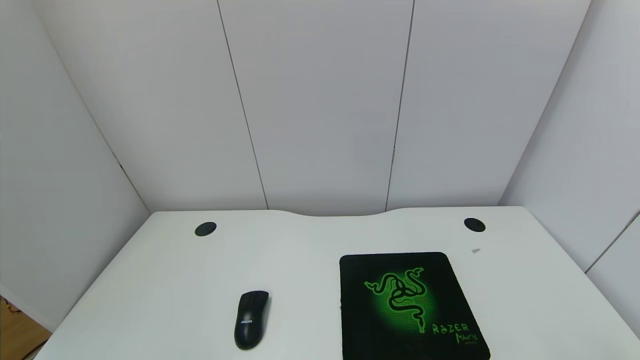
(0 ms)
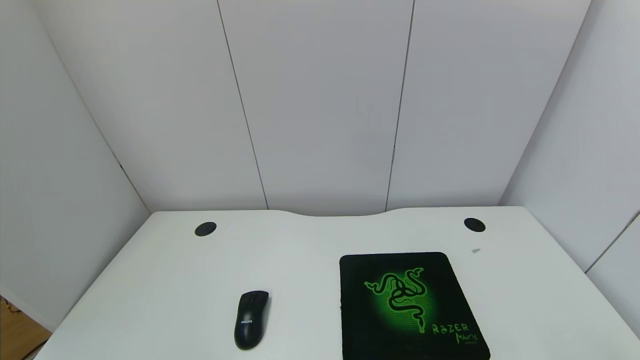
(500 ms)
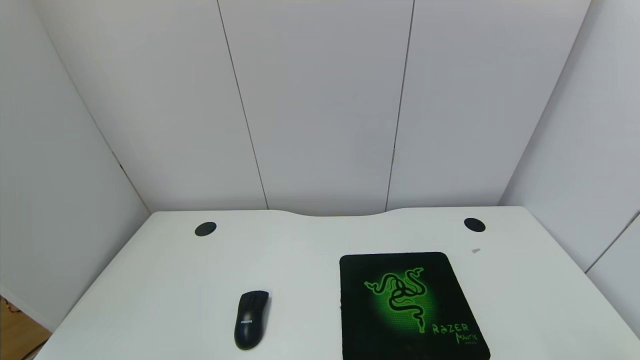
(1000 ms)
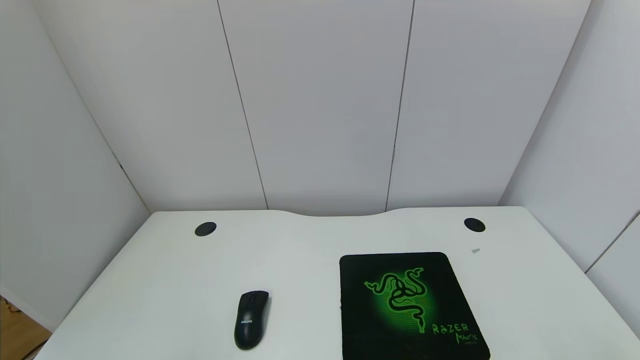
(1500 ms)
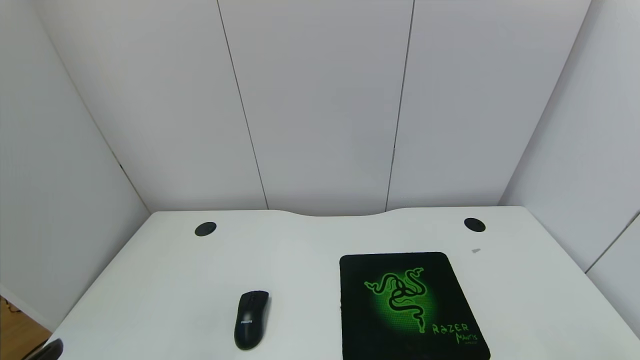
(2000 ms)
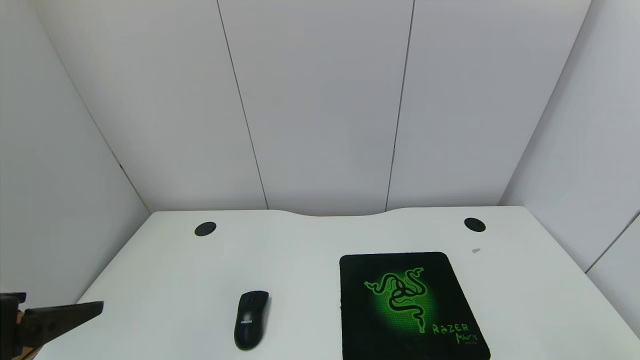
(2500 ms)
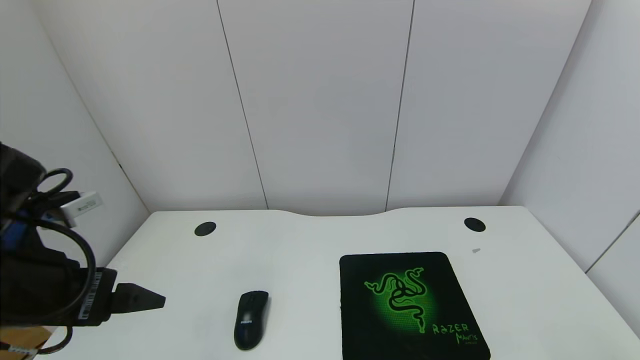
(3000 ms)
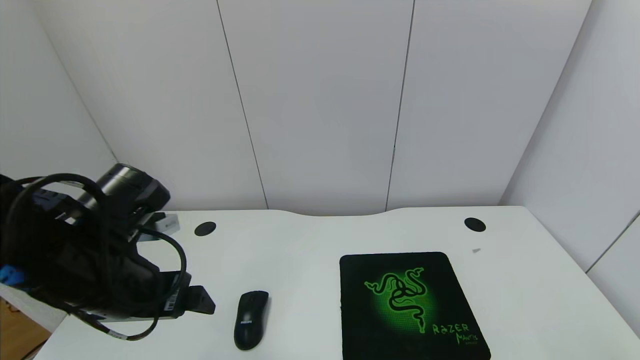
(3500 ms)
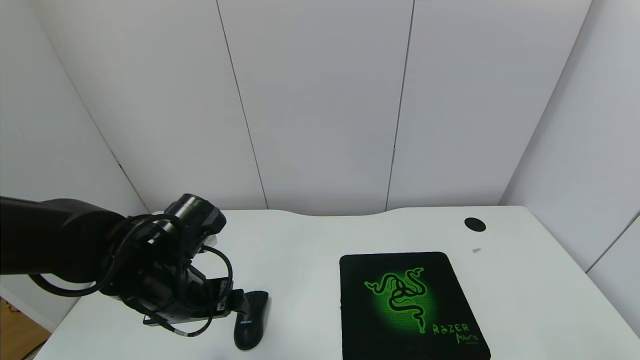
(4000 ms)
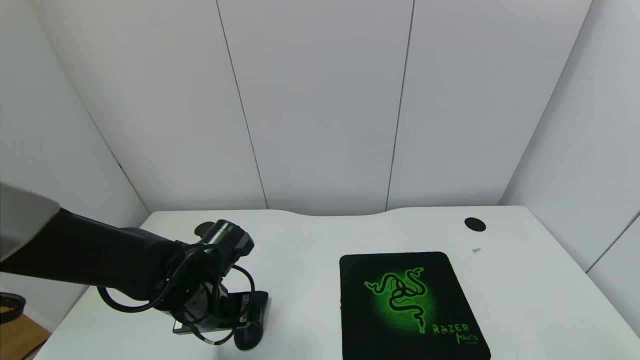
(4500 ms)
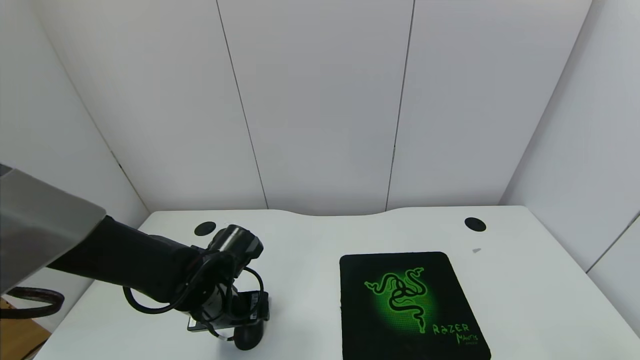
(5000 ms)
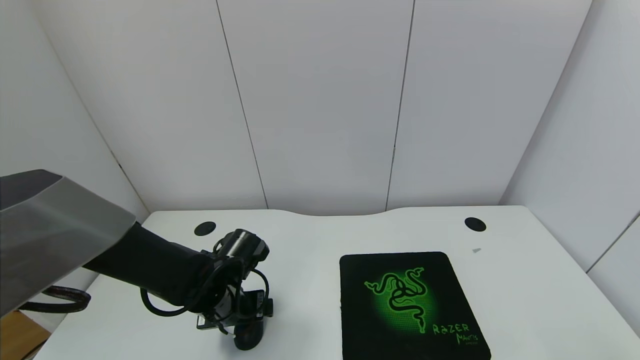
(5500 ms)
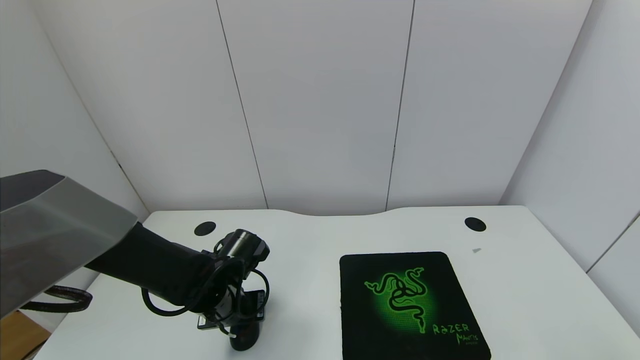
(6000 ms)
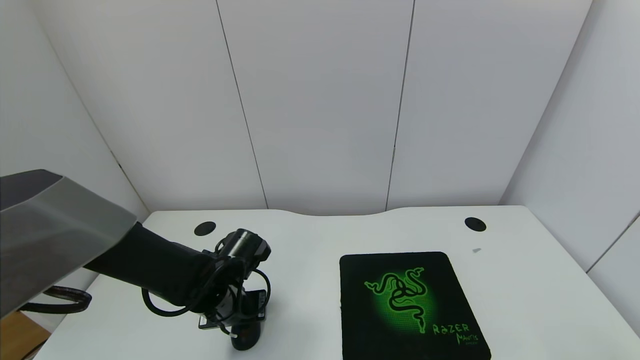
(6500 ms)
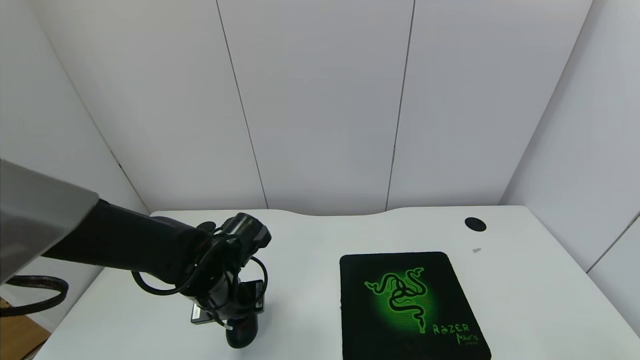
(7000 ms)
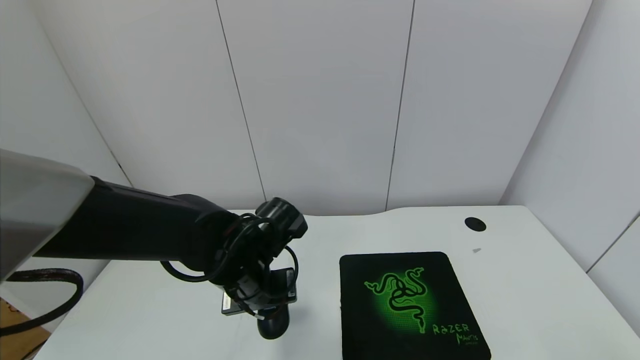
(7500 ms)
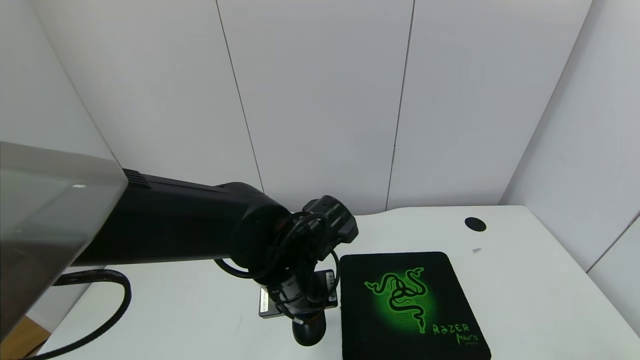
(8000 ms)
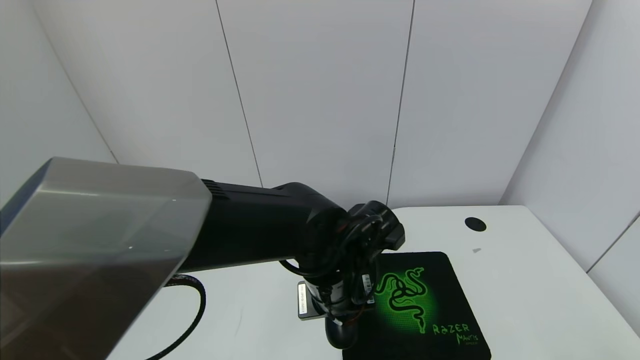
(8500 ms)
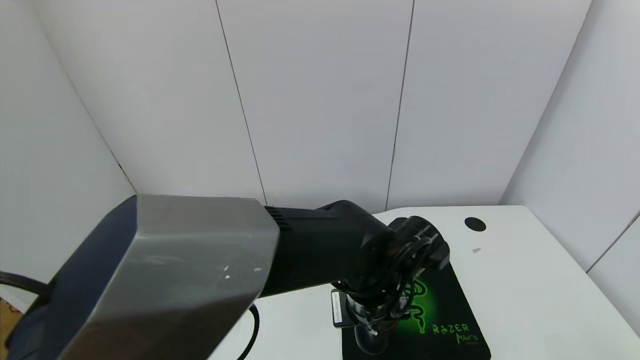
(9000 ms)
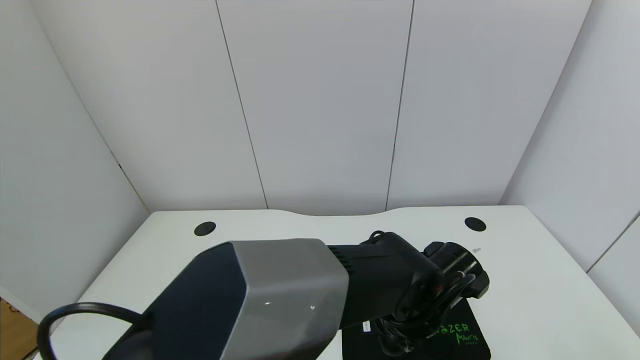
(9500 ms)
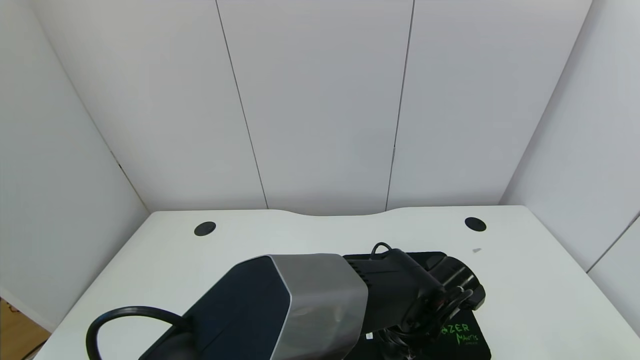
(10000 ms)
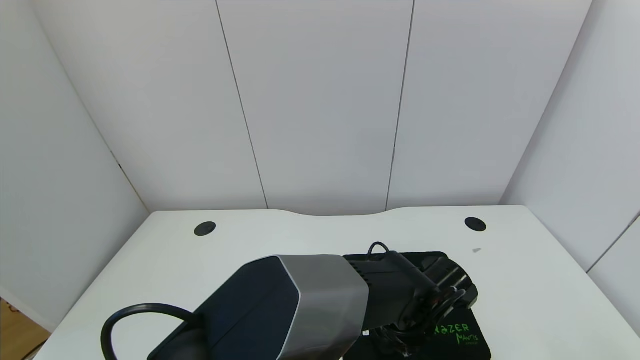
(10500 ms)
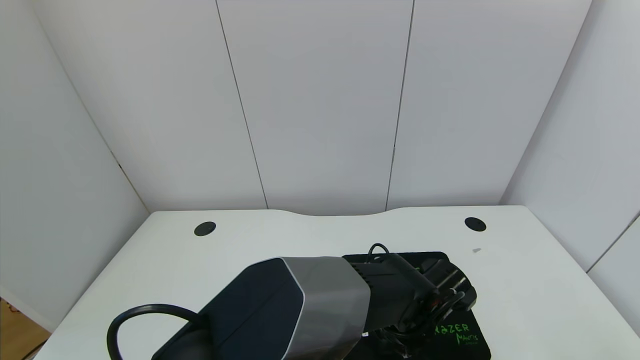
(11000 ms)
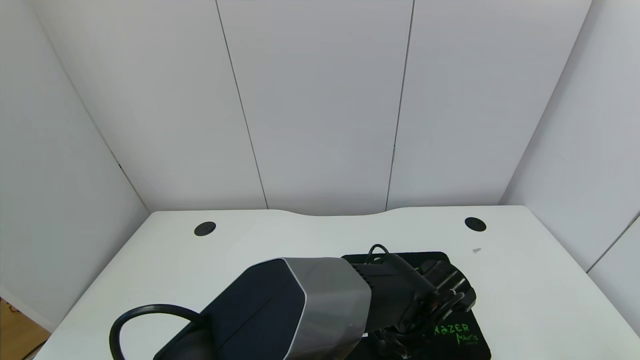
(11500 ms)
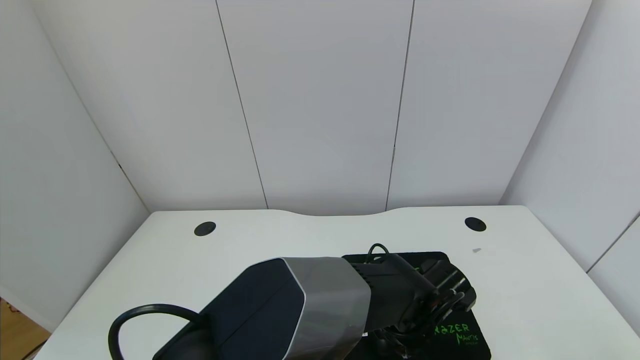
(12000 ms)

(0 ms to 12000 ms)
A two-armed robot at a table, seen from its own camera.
Task of the whole recording: use the gripper to move the mouse from one side of the table to the mouse pad on the opposite side.
Step, 0 ms - 6000 ms: Grasp the mouse with the left gripper.
2000 ms - 4000 ms: The left gripper is displaced forward and to the right by approximately 25 cm.
4000 ms - 6000 ms: The left gripper moves downward, approximately 10 cm, and closes.
6000 ms - 8000 ms: The left gripper heads to the right and upward, covering some 15 cm.
8000 ms - 10000 ms: The left gripper moves to the right and downward, about 15 cm.
10000 ms - 12000 ms: The left gripper opens its fingers.

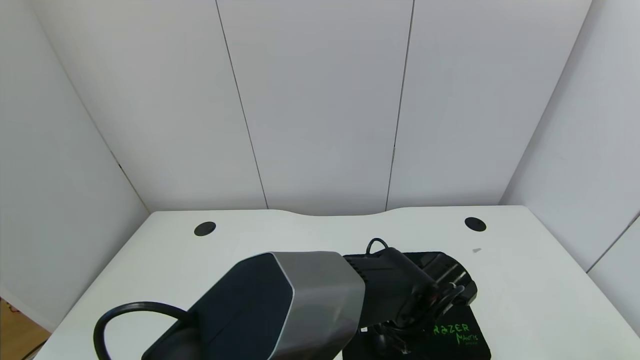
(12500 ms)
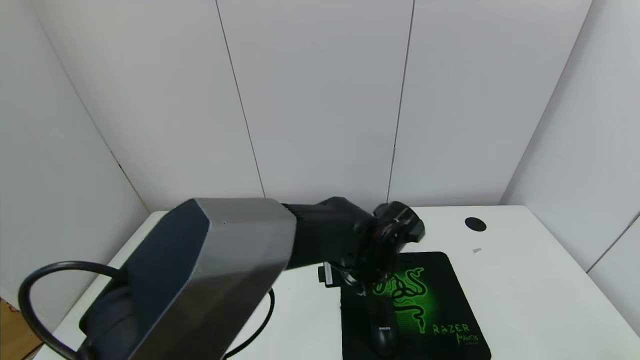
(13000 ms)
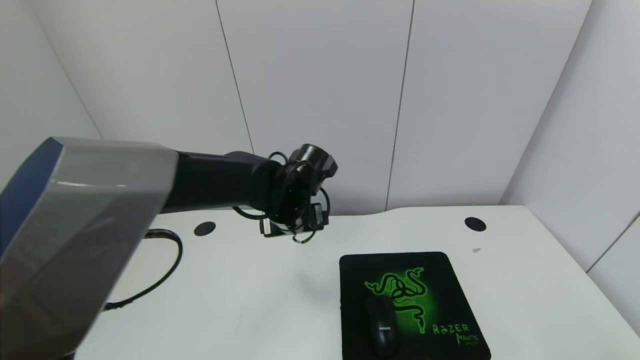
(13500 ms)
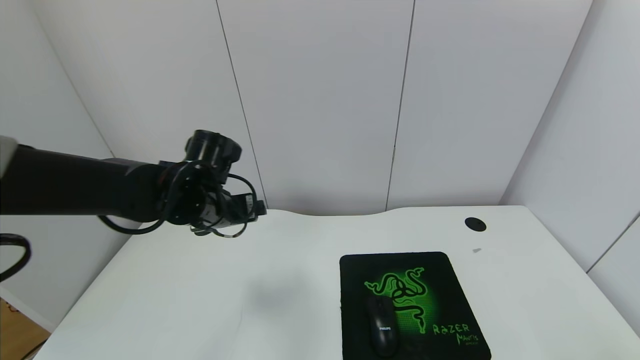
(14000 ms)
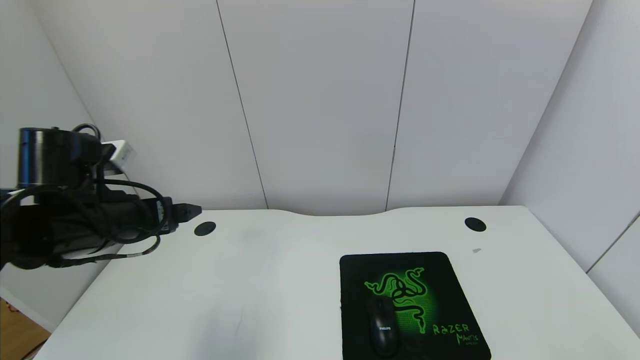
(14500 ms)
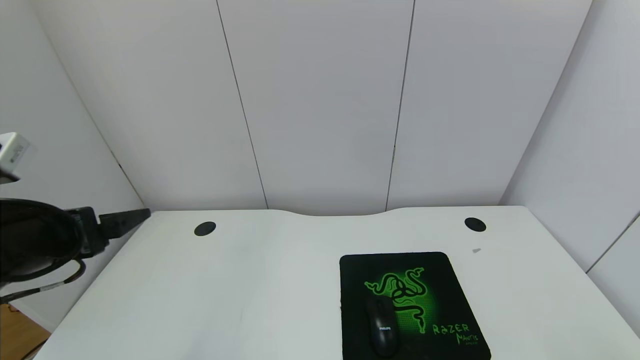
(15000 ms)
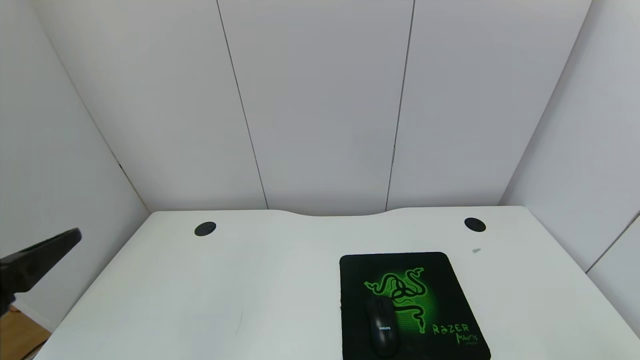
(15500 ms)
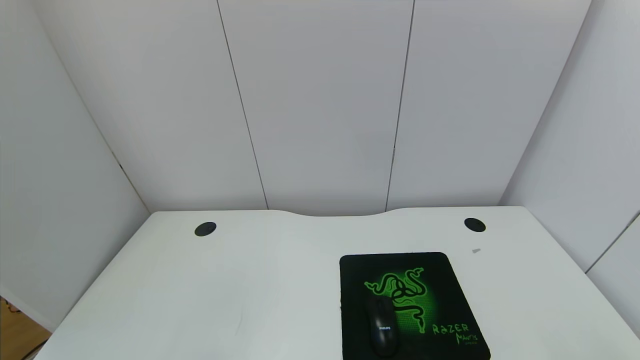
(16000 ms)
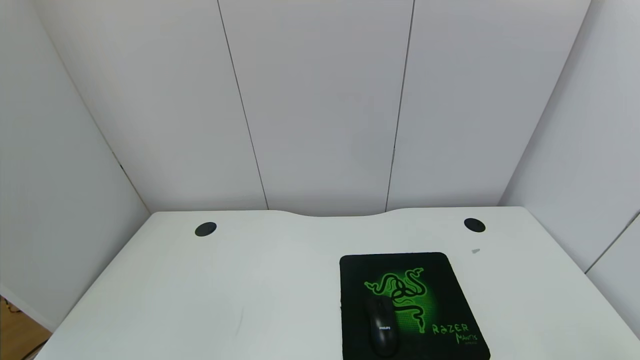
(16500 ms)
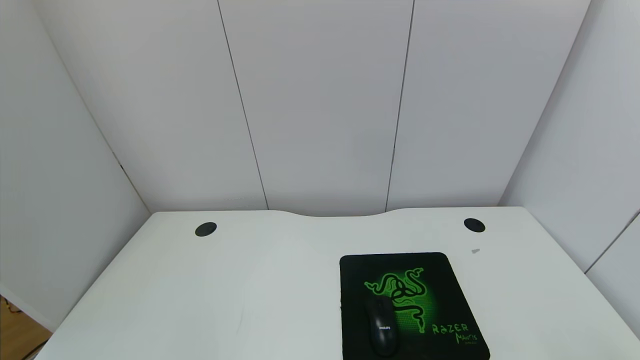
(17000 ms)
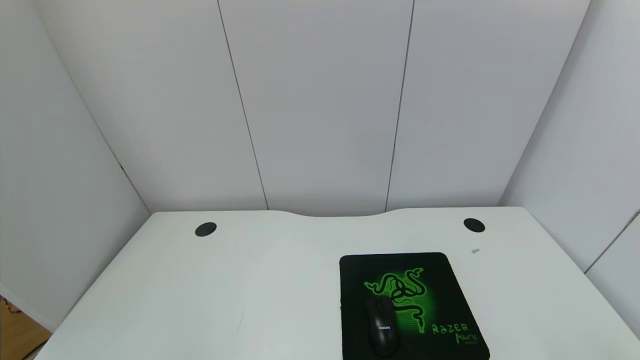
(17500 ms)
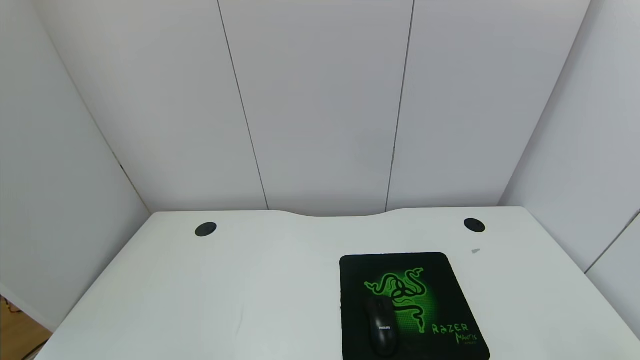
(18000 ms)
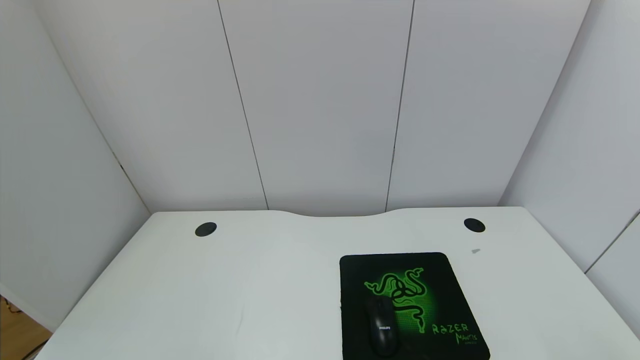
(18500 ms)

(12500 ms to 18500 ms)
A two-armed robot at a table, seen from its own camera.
Task of the whole recording: use the gripper to move the mouse from one side of the table to the mouse pad on the opposite side.
12500 ms - 14500 ms: The left gripper goes about 40 cm to the left and upward.
14500 ms - 16500 ms: The left gripper travels backward by approximately 30 cm.
